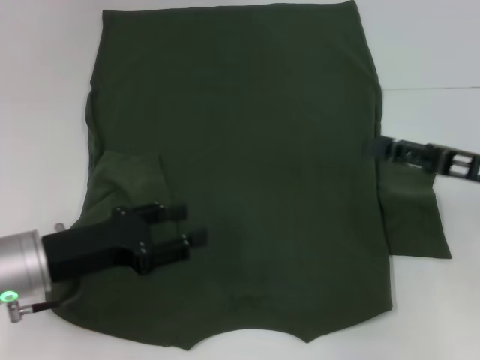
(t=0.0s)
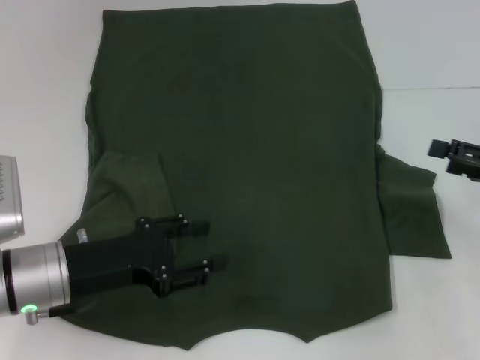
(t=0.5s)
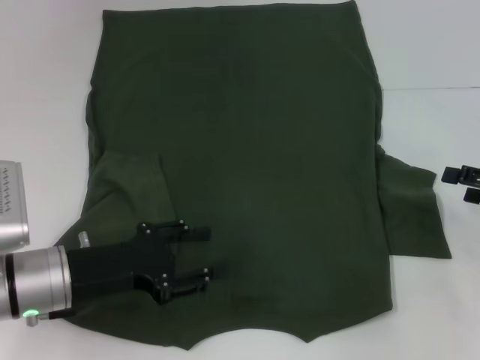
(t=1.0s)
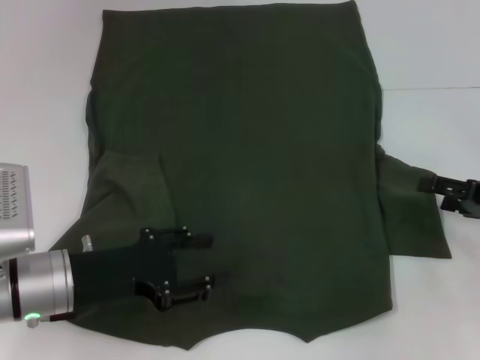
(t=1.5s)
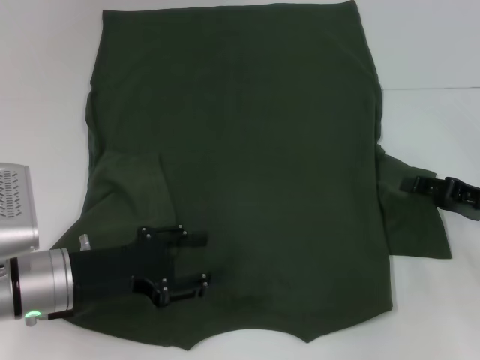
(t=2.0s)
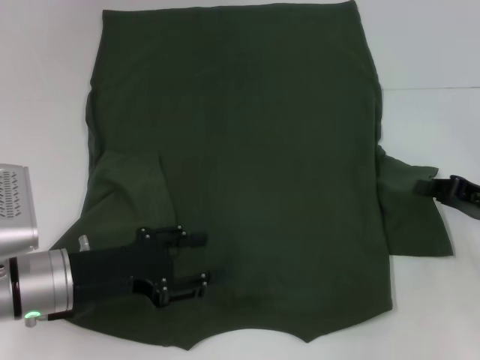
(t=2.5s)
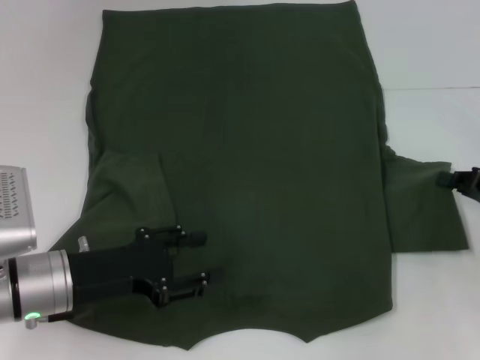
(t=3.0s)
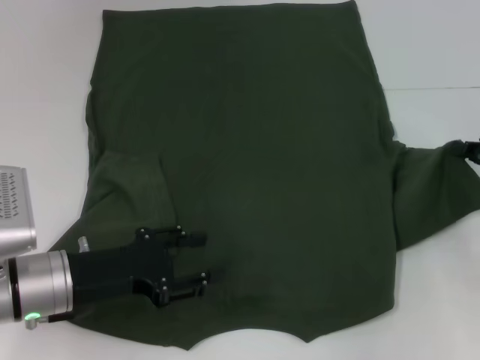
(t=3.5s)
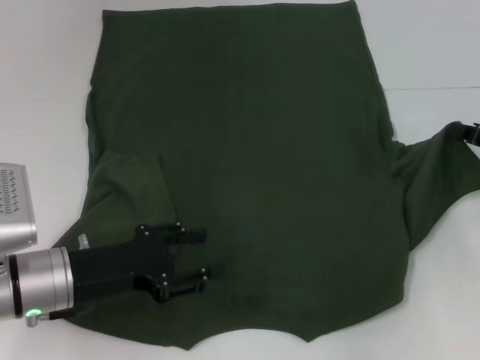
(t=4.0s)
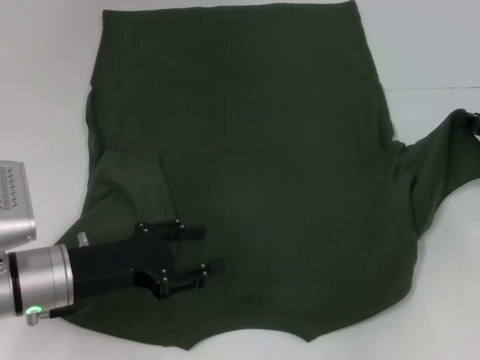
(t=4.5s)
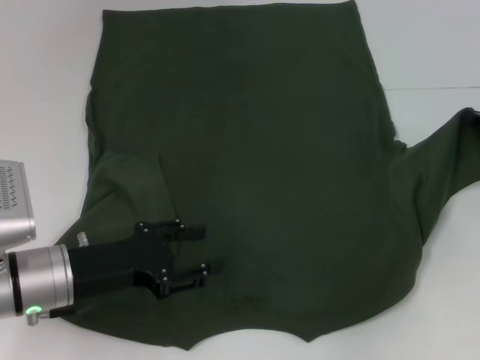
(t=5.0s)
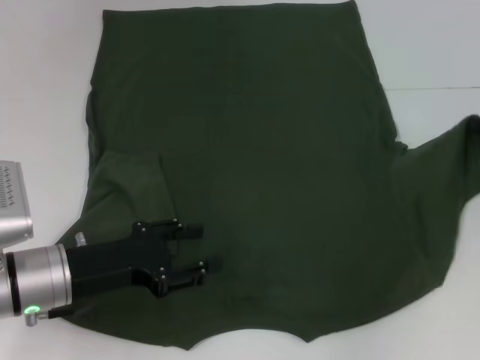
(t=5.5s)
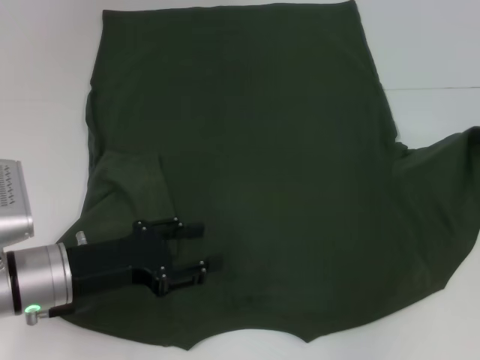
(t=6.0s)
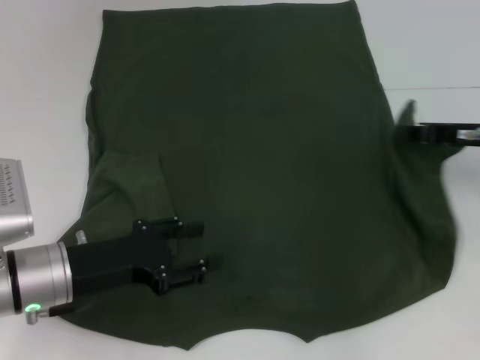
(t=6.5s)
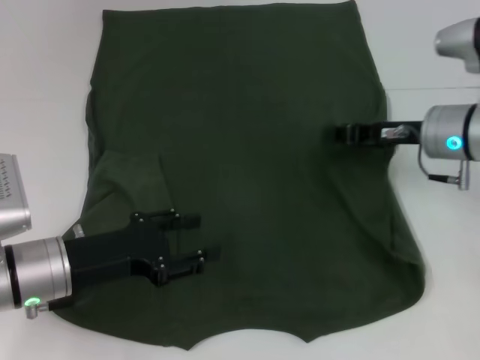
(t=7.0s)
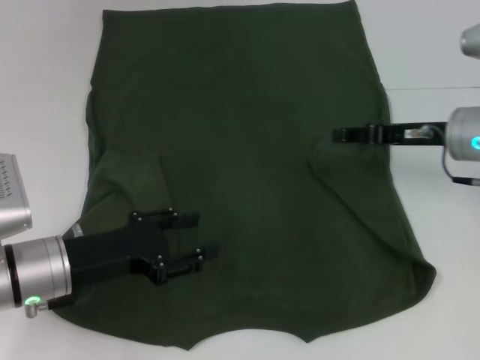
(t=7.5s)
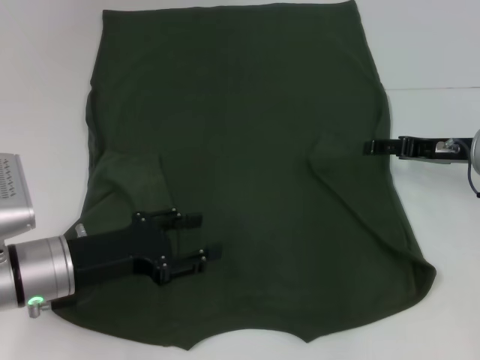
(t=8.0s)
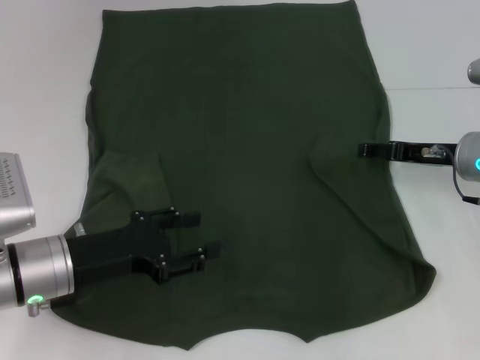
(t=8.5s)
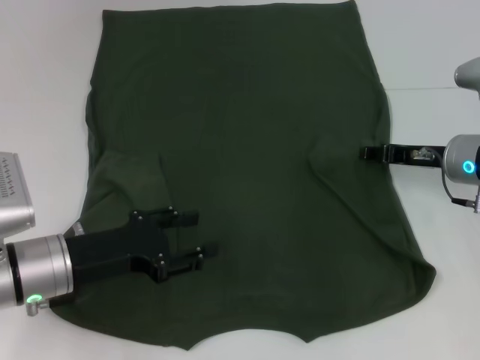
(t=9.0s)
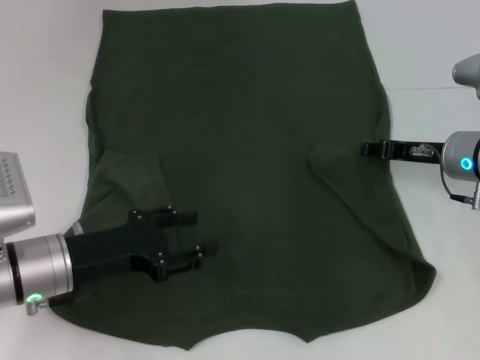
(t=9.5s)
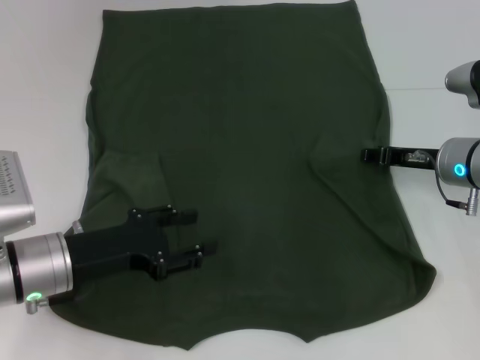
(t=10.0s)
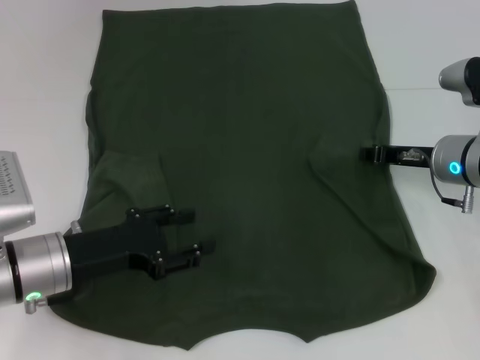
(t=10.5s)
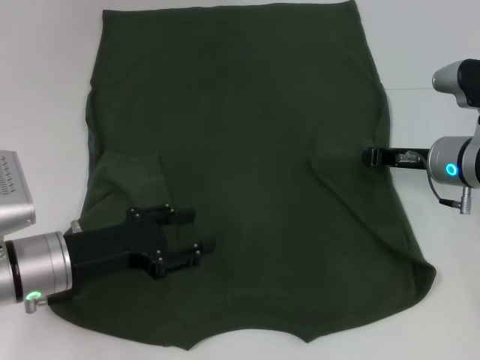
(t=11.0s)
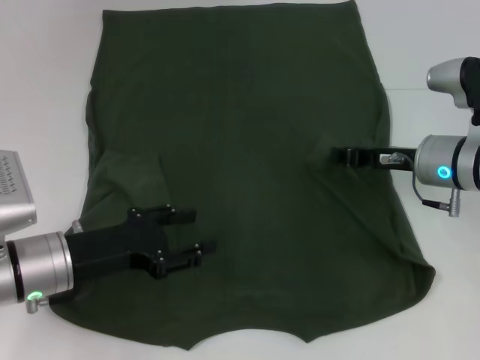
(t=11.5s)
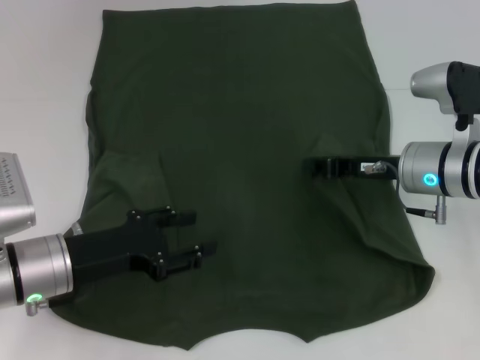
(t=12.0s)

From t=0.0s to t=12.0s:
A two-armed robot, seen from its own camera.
From t=0.0s to t=2.0s: The right gripper travels downward by approximately 5 cm.
From t=2.0s to t=4.0s: The right gripper shifts by roughly 5 cm, and closes.
From t=4.0s to t=6.0s: The grippers move only a little.
From t=6.0s to t=8.0s: The right gripper is displaced to the left by some 10 cm, and opens.
From t=8.0s to t=10.0s: The right gripper closes its fingers.
From t=10.0s to t=12.0s: The right gripper closes.

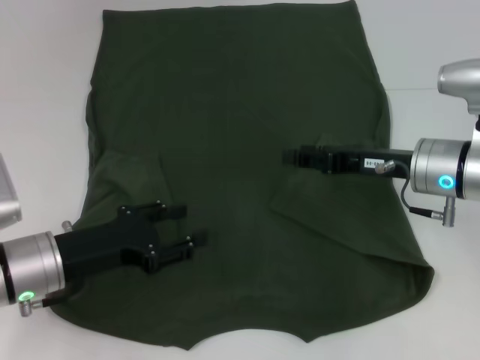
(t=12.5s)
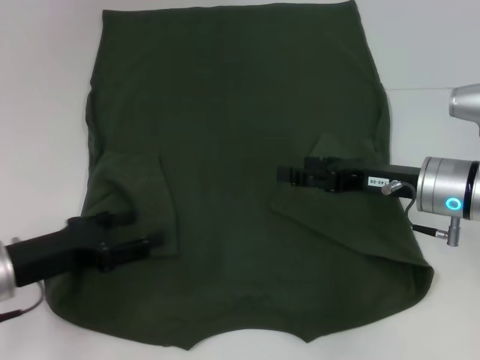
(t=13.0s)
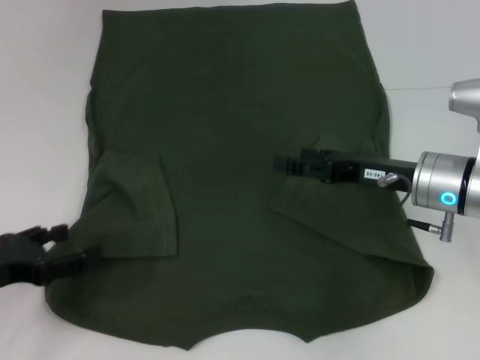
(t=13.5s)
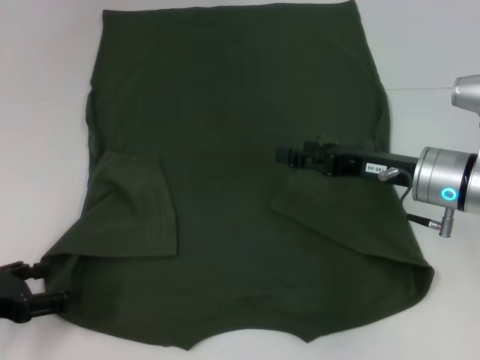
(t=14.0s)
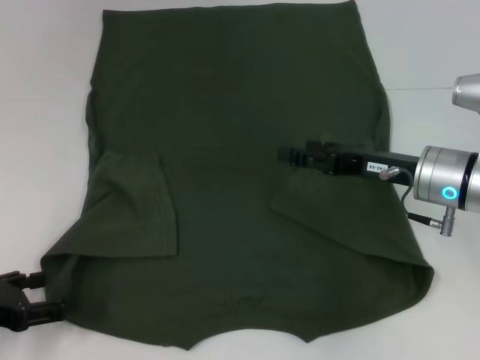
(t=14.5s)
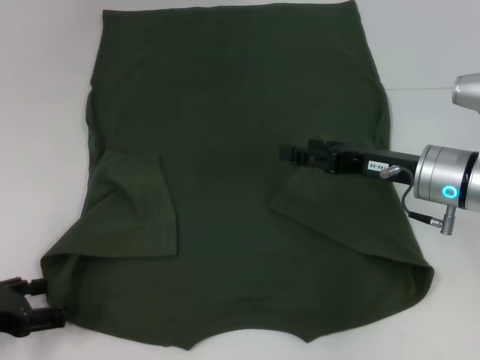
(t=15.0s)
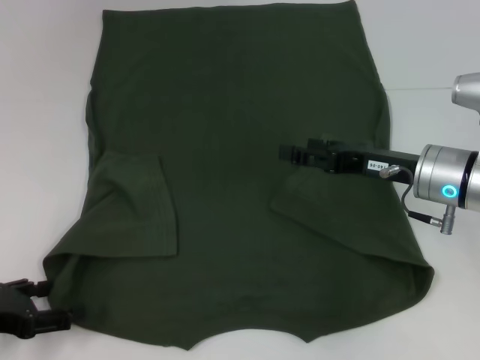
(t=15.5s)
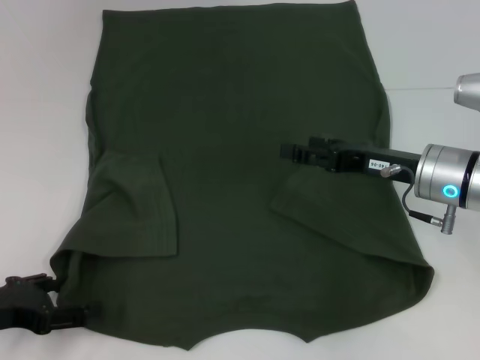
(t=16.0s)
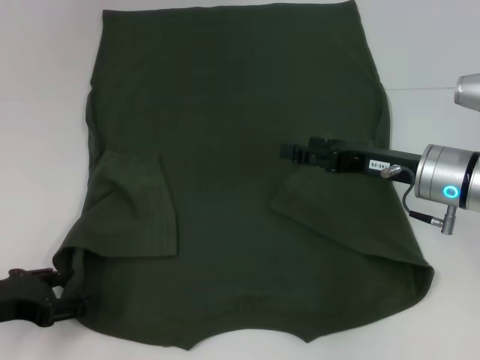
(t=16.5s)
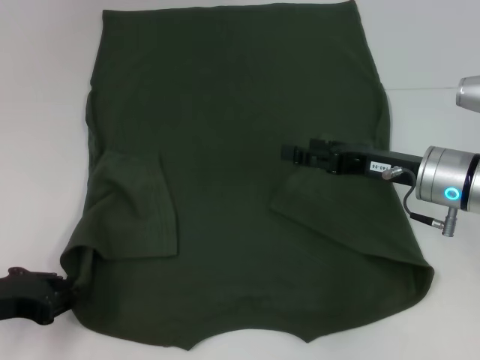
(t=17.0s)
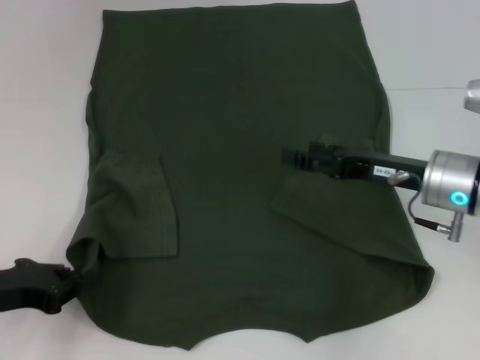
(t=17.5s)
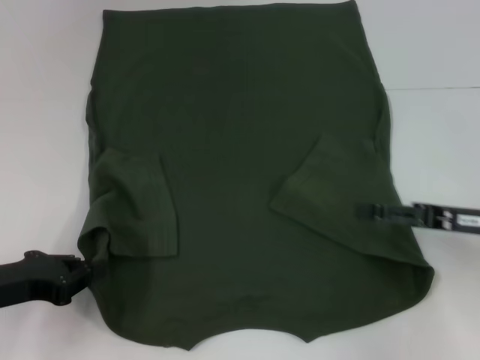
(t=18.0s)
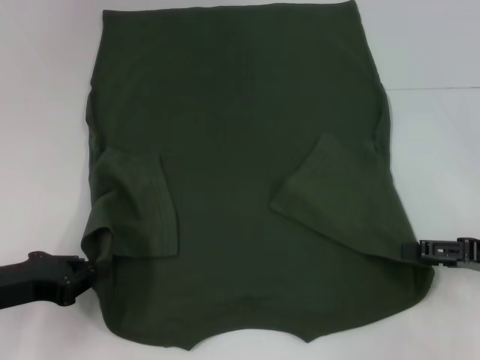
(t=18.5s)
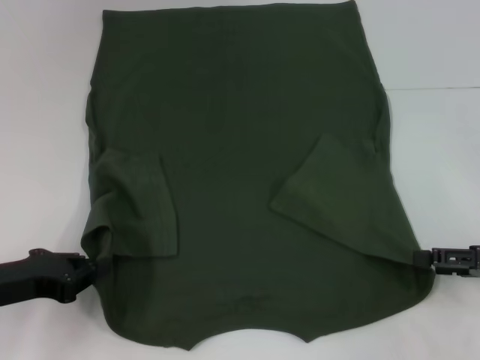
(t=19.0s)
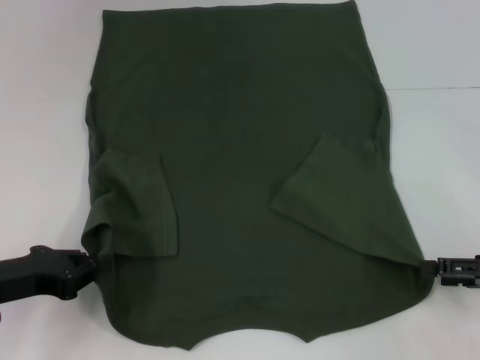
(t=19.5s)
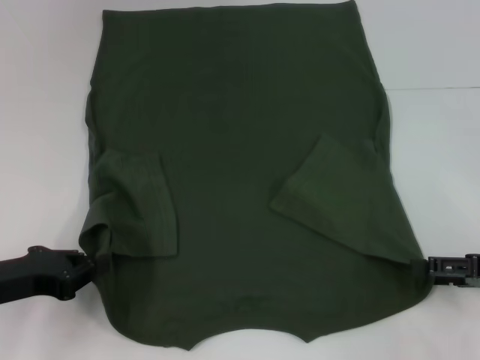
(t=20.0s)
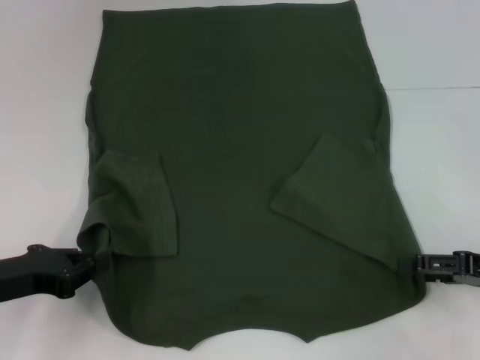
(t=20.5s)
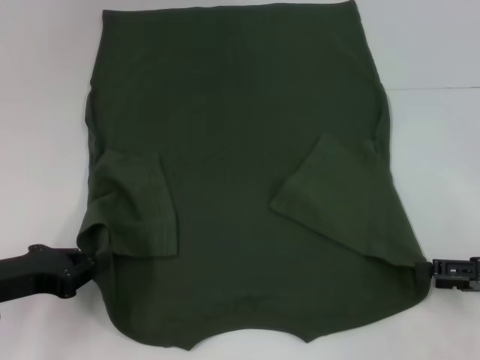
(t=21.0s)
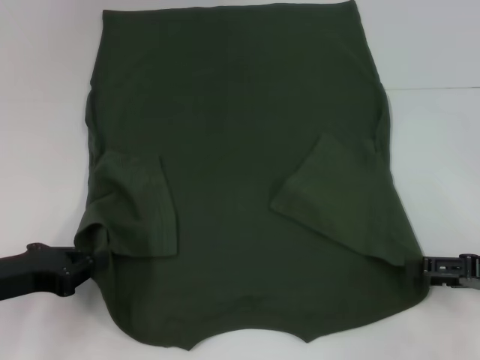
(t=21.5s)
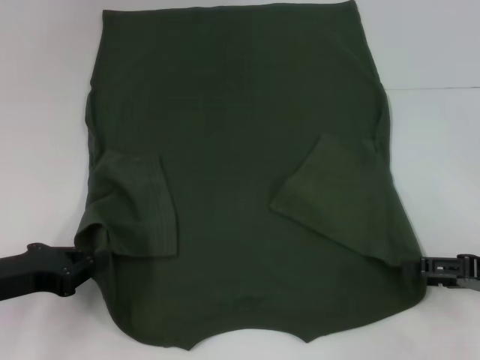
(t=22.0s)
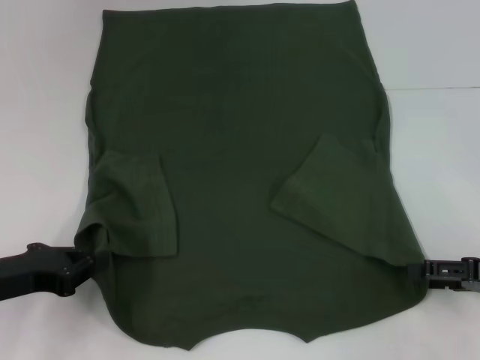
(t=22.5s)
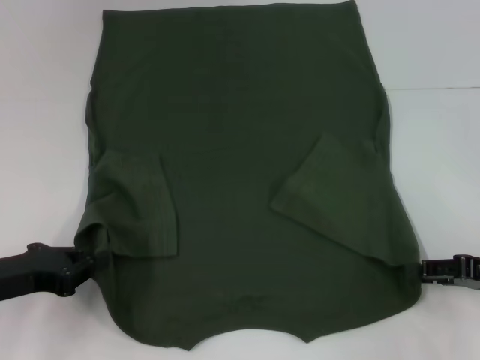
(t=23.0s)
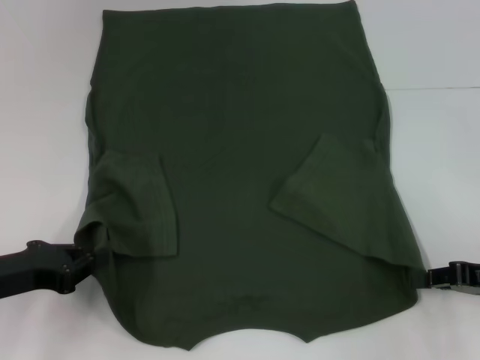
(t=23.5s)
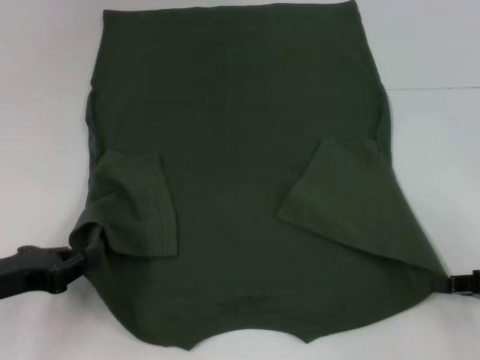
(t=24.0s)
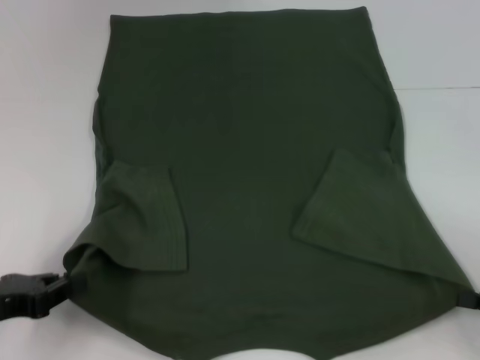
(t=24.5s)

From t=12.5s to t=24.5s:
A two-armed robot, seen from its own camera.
Step, from t=12.5s to t=17.0s: Grab the bottom left corner with your left hand.
Step, from t=17.5s to t=23.0s: Grab the bottom right corner with your right hand.
From t=12.5s to t=14.5s: The right gripper opens. Meanwhile the left gripper heads to the left and backward, covering about 10 cm.
From t=14.5s to t=16.5s: There are only small adjustments of the grippers.
From t=16.5s to t=18.5s: The left gripper closes its fingers, while the right gripper travels to the right and backward by approximately 15 cm.
From t=18.5s to t=22.5s: The grippers stay close to where they were, moving slightly.
From t=22.5s to t=24.5s: The right gripper goes approximately 5 cm backward, and closes.

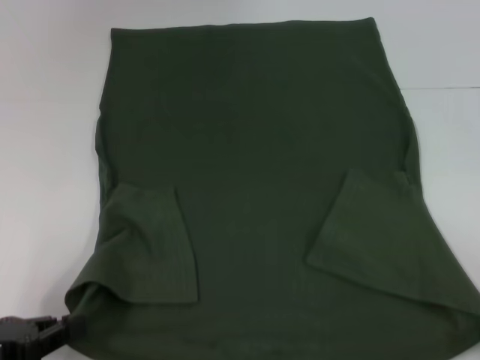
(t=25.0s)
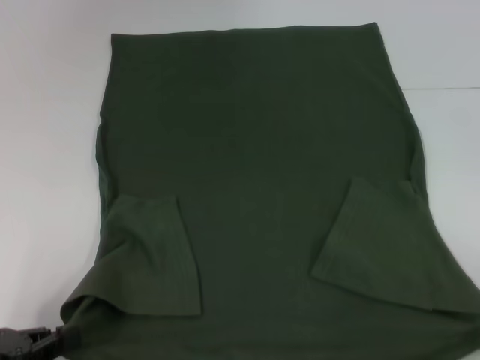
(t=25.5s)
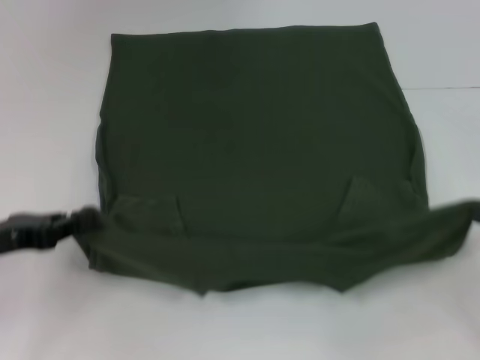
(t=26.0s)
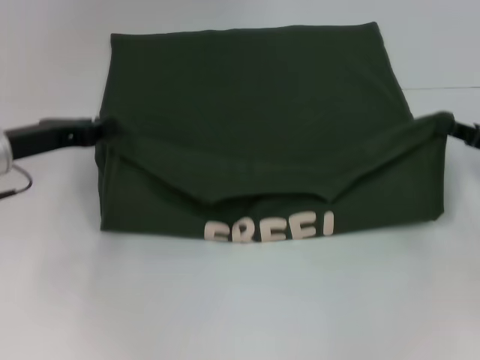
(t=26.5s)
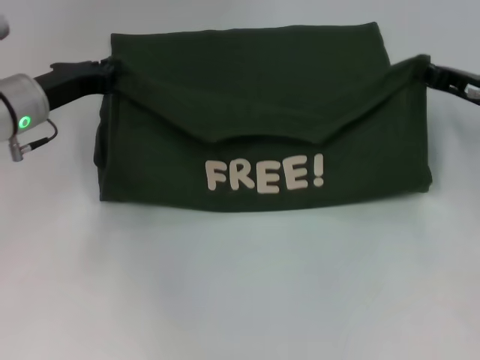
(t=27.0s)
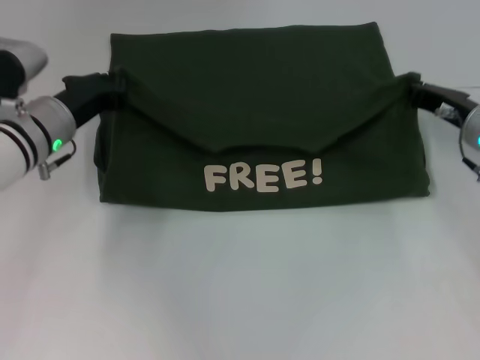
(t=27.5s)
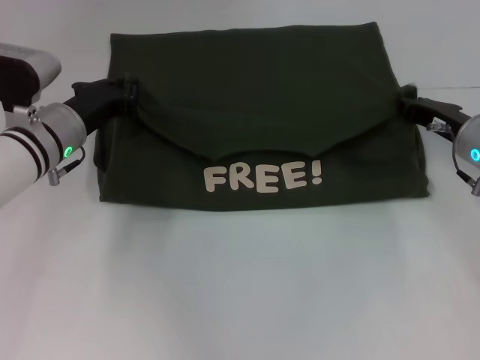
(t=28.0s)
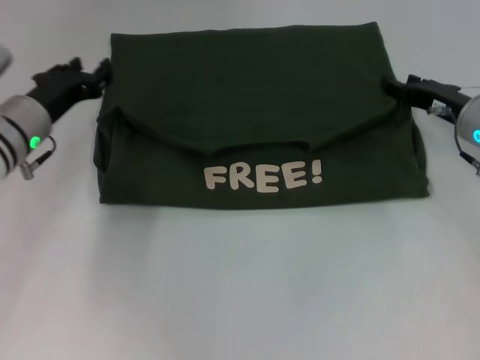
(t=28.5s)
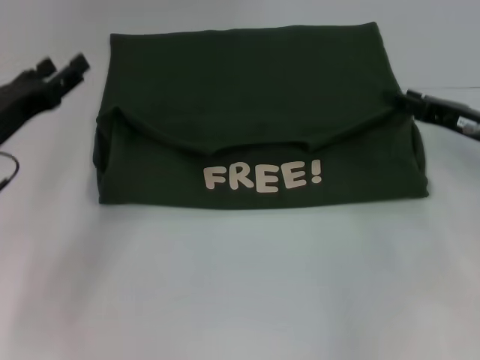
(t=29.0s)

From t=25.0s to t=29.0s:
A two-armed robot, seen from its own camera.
Step, from t=25.0s to t=28.0s: Fold the clothes with your left hand.
Step, from t=25.0s to t=28.0s: Fold the clothes with your right hand.
From t=25.0s to t=27.0s: Both grippers move forward, approximately 25 cm.
From t=27.0s to t=29.0s: The left gripper shifts approximately 10 cm backward, and opens up; the right gripper opens its fingers.
